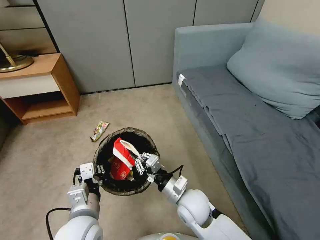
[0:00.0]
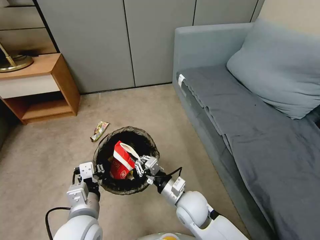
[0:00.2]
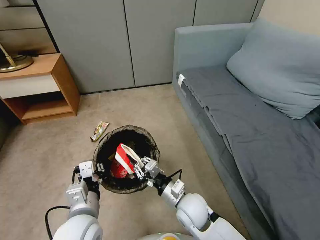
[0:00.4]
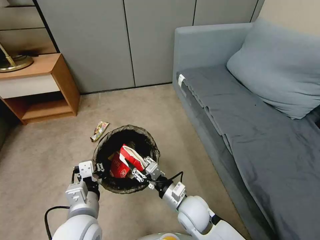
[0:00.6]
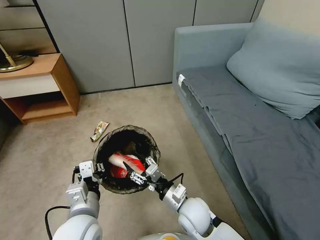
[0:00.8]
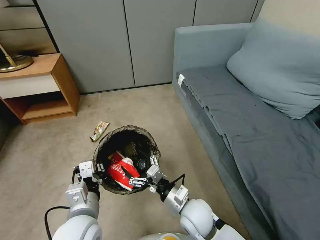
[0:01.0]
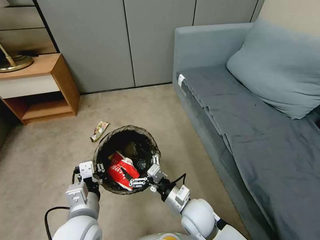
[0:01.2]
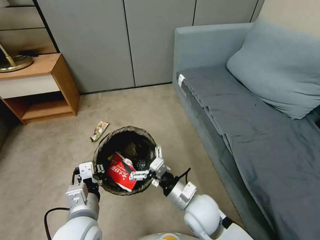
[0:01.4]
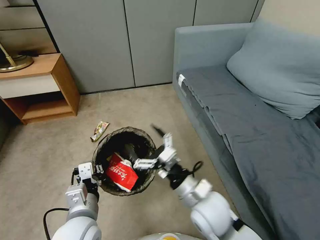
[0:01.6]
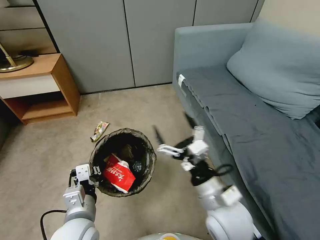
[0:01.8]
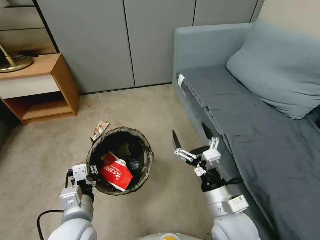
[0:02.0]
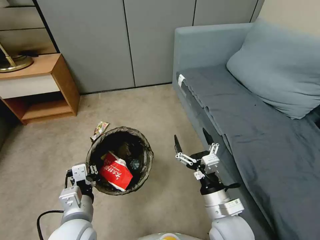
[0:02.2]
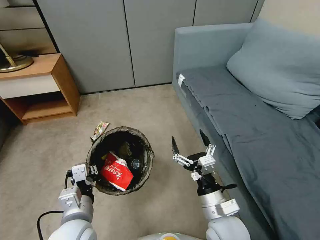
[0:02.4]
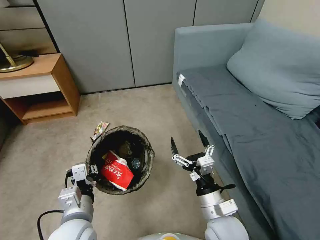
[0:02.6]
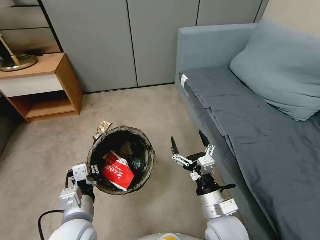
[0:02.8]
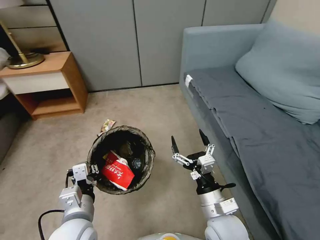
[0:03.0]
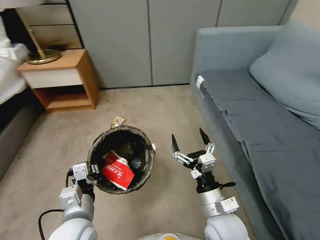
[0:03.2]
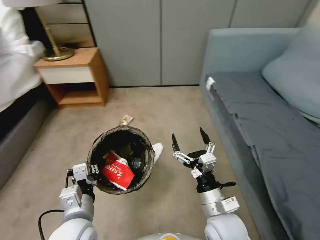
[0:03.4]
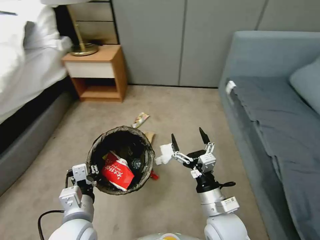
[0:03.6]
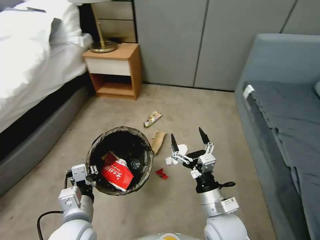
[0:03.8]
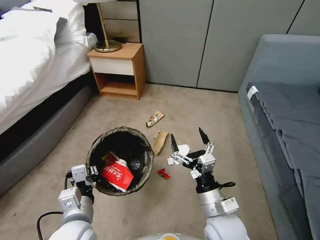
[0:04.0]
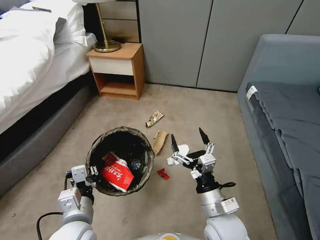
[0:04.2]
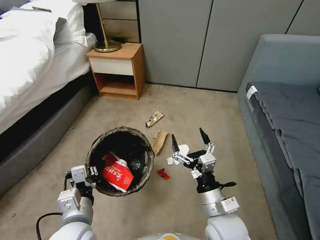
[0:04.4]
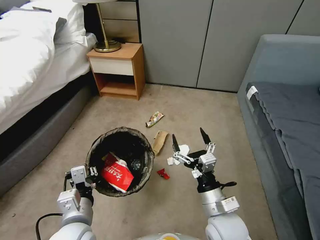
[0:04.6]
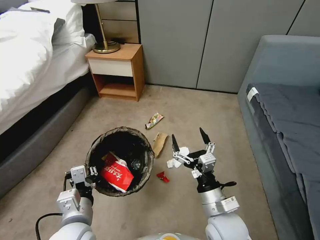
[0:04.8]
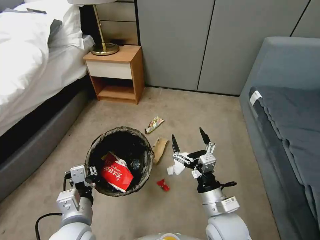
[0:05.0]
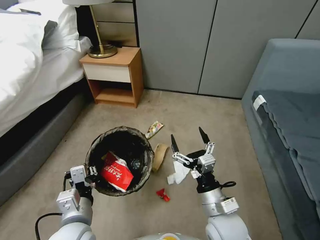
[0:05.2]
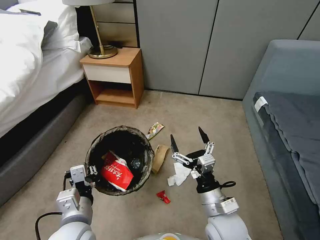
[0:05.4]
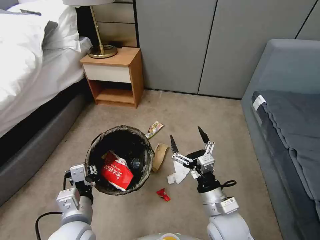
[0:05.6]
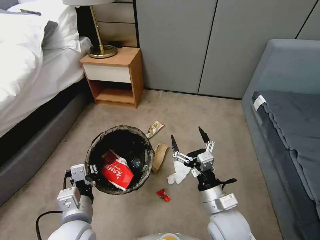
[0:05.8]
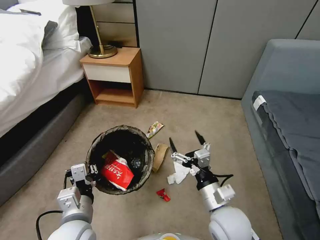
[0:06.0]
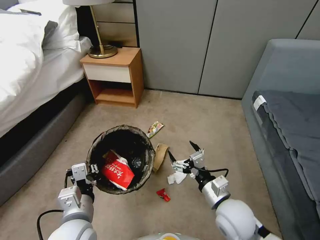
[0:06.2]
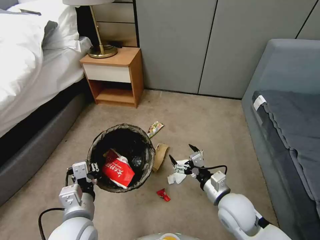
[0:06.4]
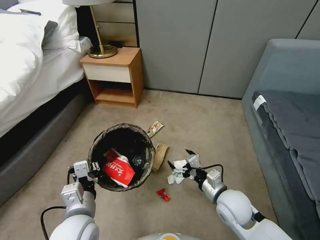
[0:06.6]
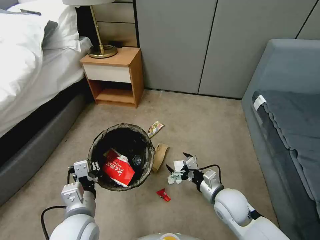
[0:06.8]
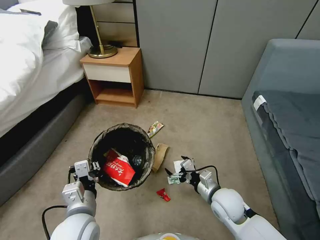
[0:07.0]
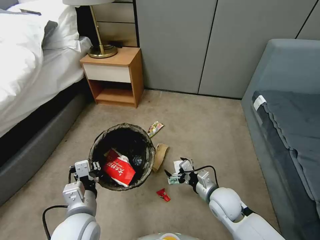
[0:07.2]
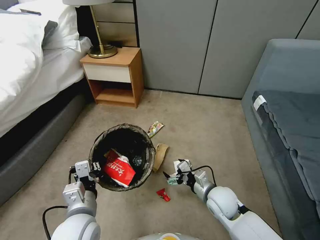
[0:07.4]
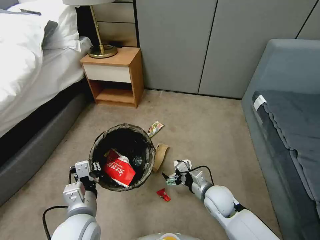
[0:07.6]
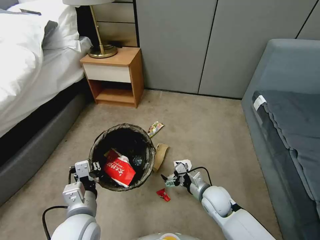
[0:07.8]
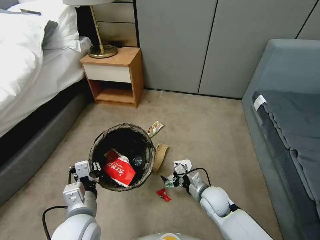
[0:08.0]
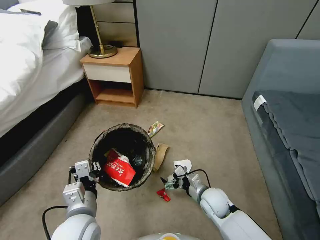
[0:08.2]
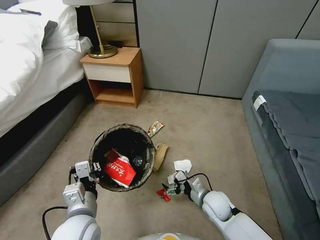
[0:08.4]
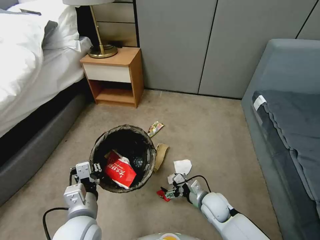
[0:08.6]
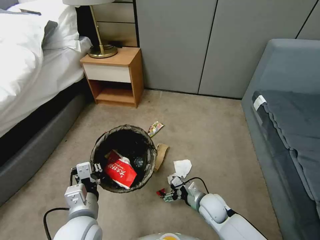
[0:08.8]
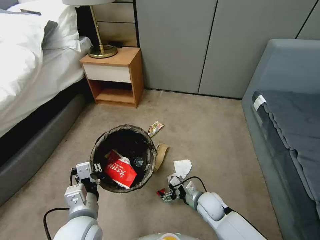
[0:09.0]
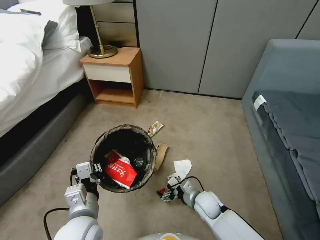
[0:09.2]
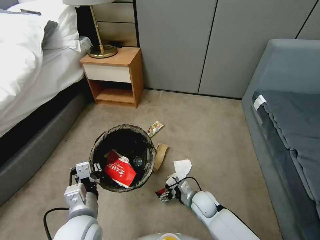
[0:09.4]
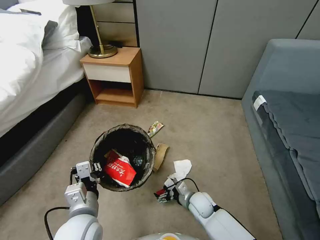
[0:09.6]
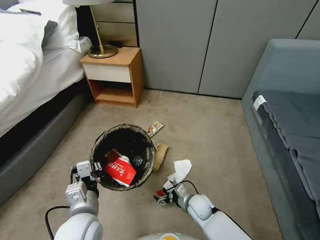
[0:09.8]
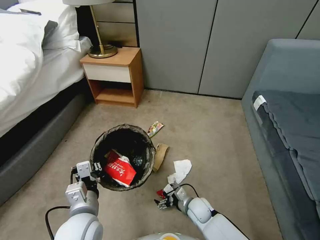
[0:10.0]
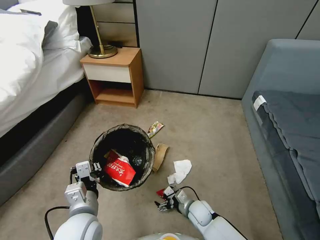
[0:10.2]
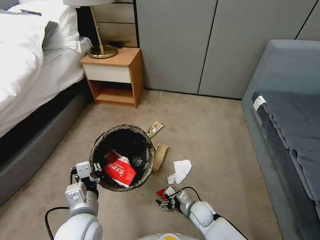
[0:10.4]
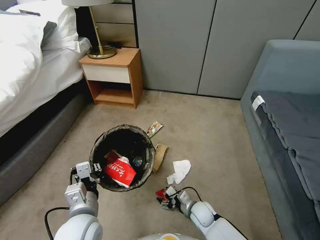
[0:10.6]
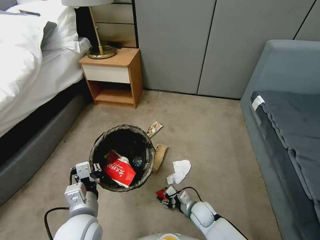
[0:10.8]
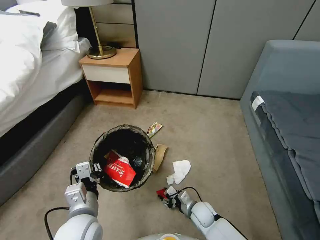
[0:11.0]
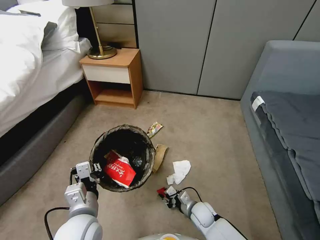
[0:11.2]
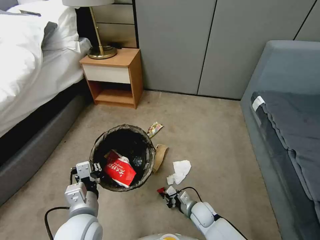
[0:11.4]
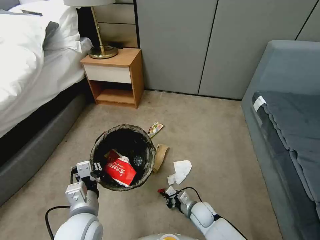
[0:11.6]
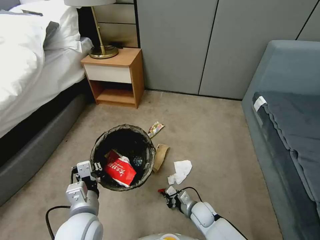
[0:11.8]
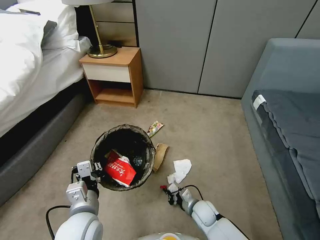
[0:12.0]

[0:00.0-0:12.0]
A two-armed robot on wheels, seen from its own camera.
Task of the whole recording: Pick up the trash bin, then pick up the garbage from the floor and place it into the trash bin.
0:00.0 to 0:01.6: The right gripper moves upward, roughly 10 cm, and opens its fingers.
0:01.6 to 0:03.0: The right gripper shifts roughly 5 cm downward.
0:06.0 to 0:07.6: The right gripper shifts approximately 15 cm downward and forward.
0:07.6 to 0:09.0: The right gripper heads downward, covering approximately 5 cm.
0:09.0 to 0:10.4: The right gripper moves downward, roughly 10 cm.
0:10.4 to 0:12.0: The right gripper closes.

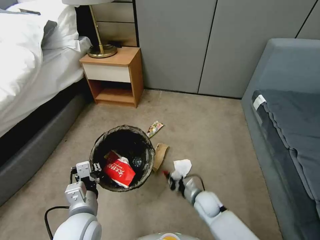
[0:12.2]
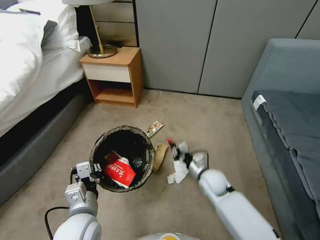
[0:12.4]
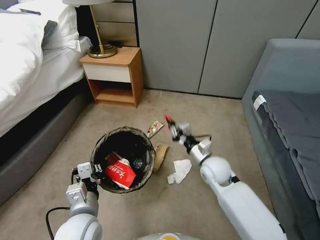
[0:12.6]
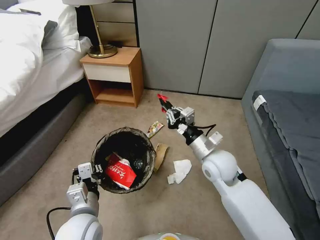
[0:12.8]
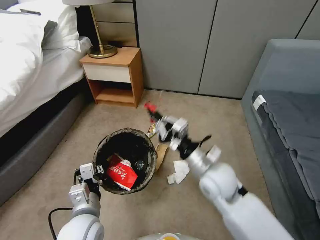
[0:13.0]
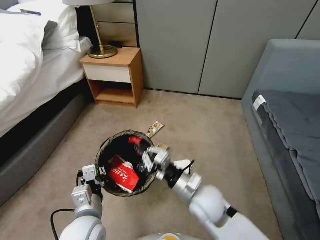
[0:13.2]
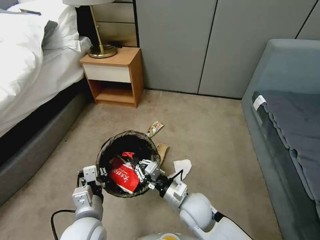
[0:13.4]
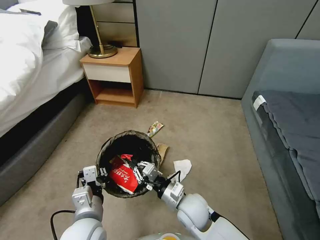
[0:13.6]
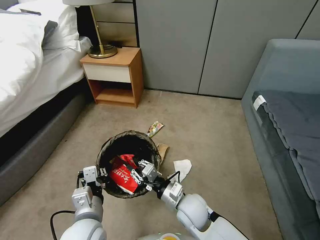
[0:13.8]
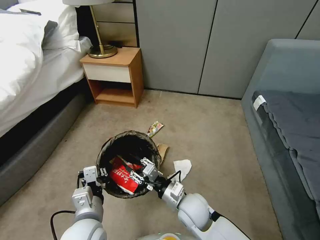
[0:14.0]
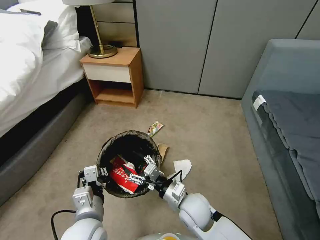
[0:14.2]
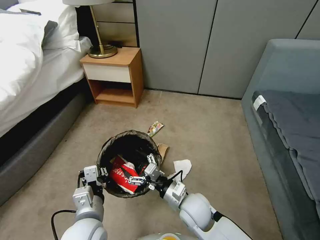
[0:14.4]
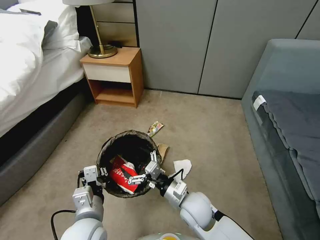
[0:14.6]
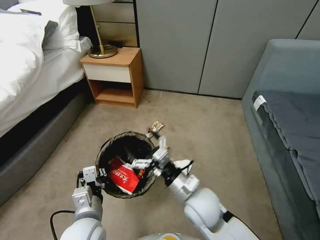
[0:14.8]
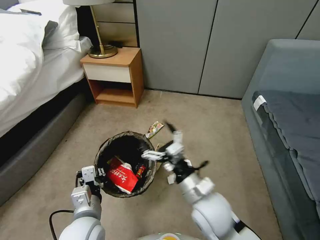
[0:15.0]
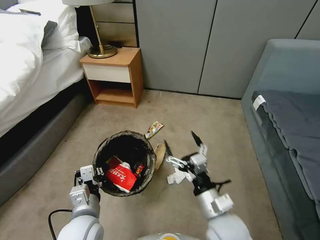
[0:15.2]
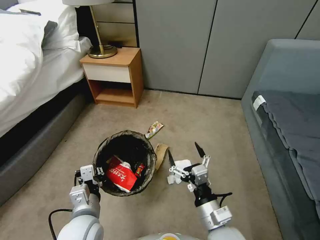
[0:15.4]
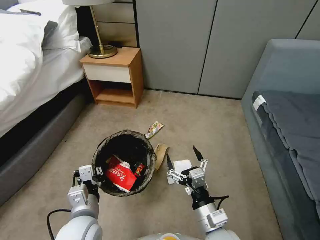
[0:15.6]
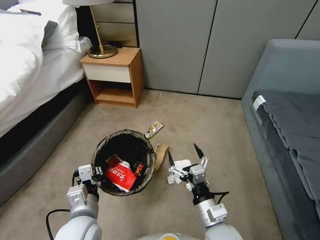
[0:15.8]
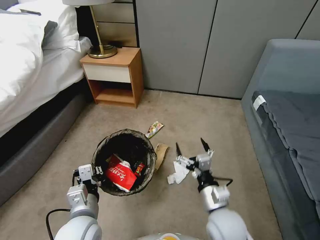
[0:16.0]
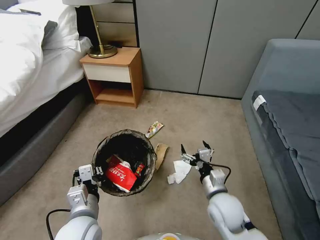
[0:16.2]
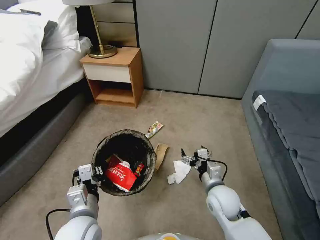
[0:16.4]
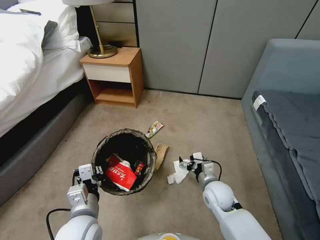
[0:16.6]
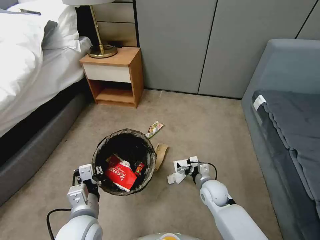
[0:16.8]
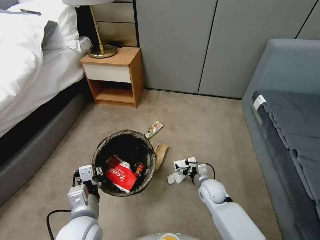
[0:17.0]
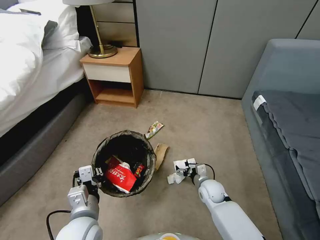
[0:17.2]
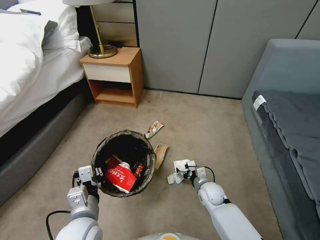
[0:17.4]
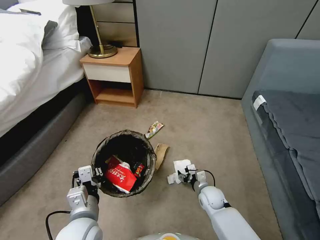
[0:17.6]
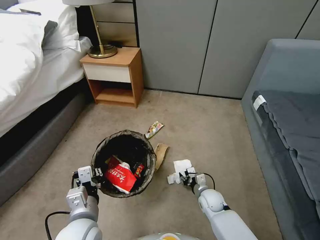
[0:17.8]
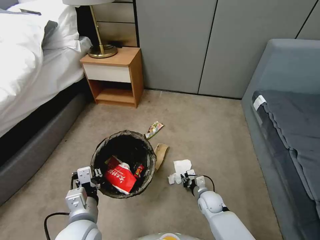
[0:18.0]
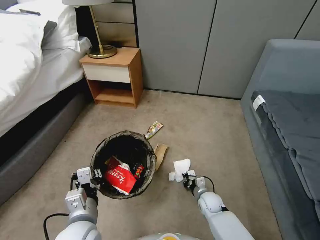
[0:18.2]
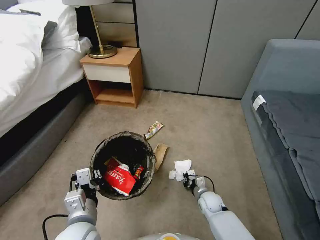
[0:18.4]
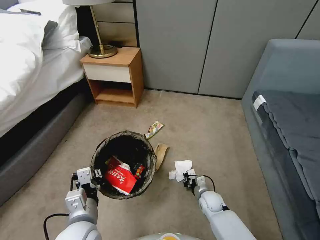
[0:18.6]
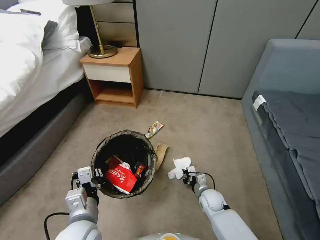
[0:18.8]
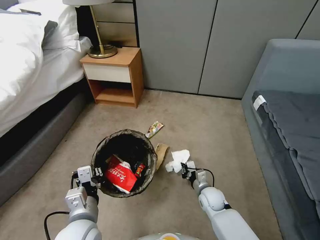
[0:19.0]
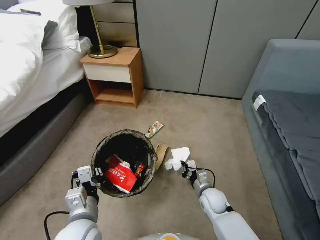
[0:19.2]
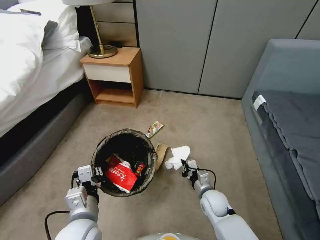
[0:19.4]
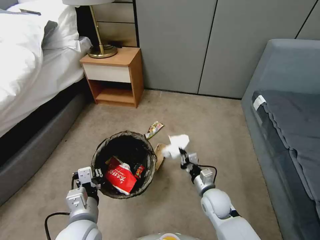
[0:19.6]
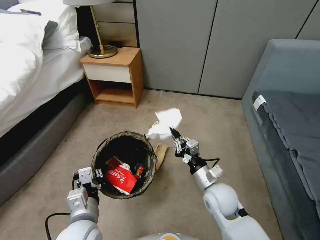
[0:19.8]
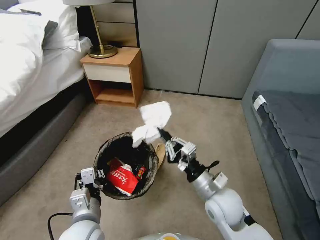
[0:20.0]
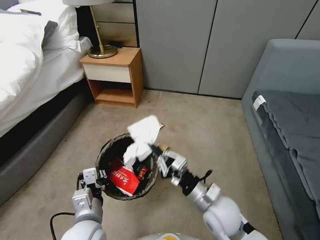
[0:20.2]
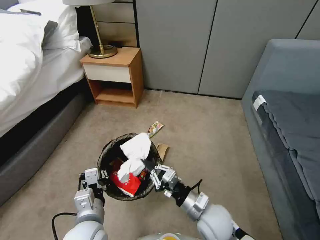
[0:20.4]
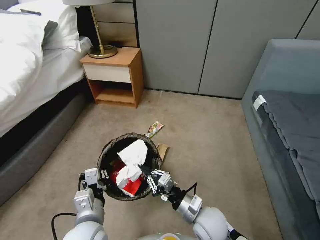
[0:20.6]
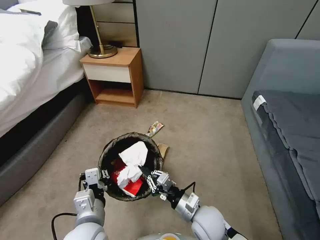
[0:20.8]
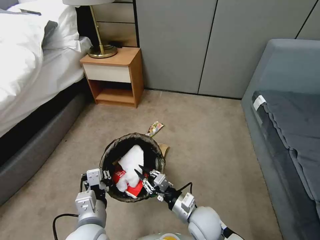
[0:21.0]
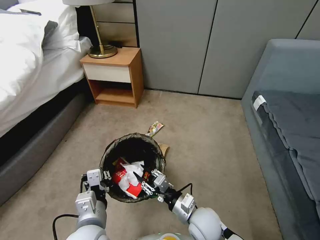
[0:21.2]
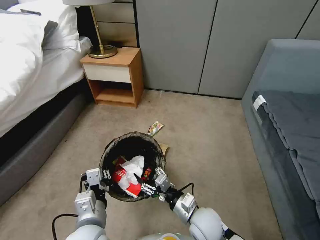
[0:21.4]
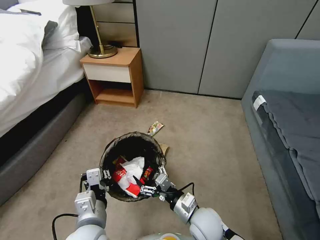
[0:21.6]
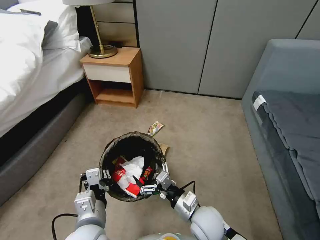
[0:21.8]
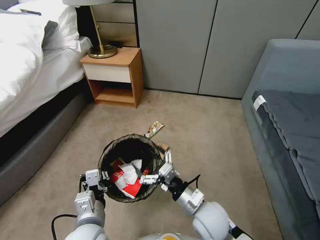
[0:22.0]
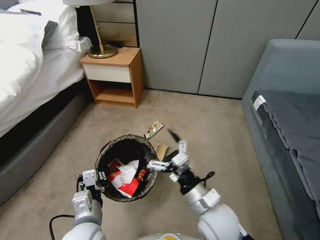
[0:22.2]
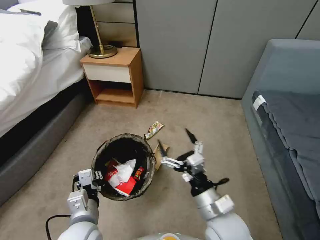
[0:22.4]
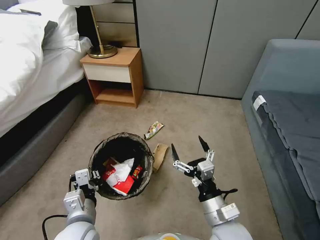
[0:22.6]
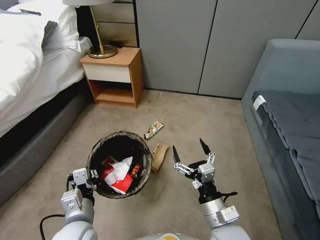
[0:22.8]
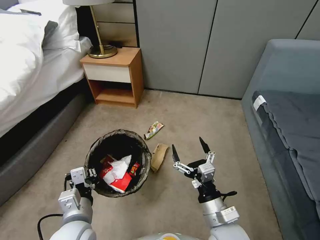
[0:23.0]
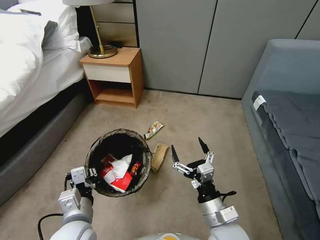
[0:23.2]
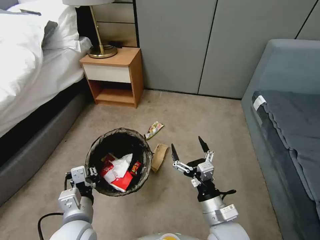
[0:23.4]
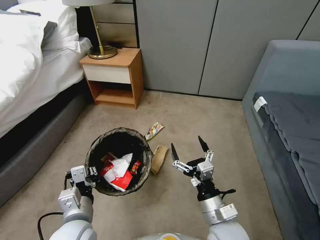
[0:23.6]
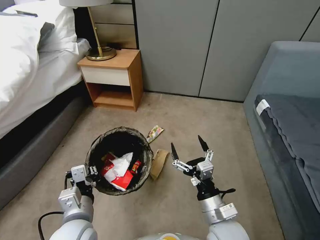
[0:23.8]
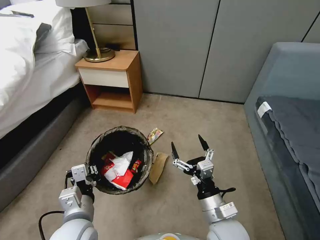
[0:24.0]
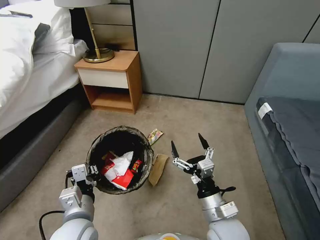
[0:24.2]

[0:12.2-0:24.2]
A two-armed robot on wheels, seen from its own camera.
Task of the whole recording: Pick up the trash bin, then pick up the garbage from the floor and place it into the trash bin.
0:12.2 to 0:13.8: The right gripper shifts about 15 cm upward and to the left.
0:13.8 to 0:15.2: The right gripper heads upward, backward and to the right, covering about 10 cm, and opens its fingers.
0:15.2 to 0:16.6: The right gripper moves forward and downward, some 15 cm.
0:16.6 to 0:18.2: The right gripper moves downward, about 15 cm, and closes its fingers.
0:18.2 to 0:19.8: The right gripper goes about 20 cm upward.
0:19.8 to 0:21.2: The right gripper is displaced backward and to the left by about 10 cm.
0:21.2 to 0:22.6: The right gripper moves upward, about 10 cm, and opens its fingers.
